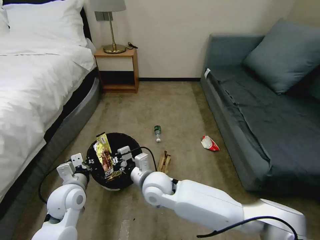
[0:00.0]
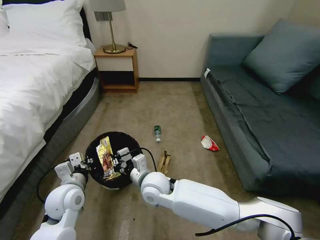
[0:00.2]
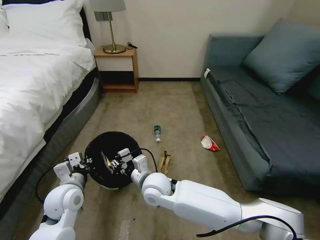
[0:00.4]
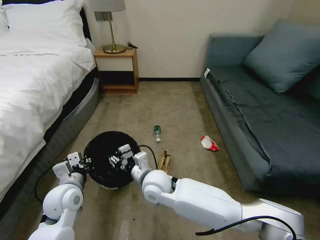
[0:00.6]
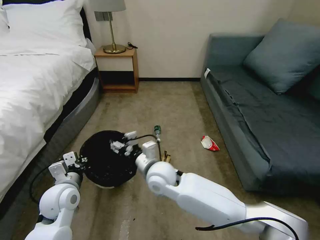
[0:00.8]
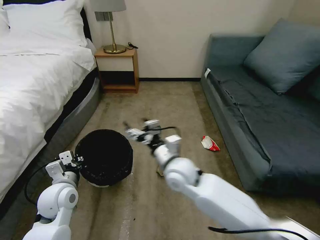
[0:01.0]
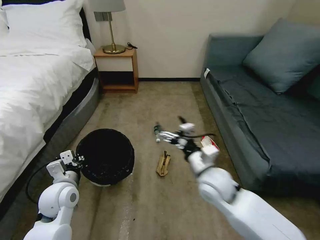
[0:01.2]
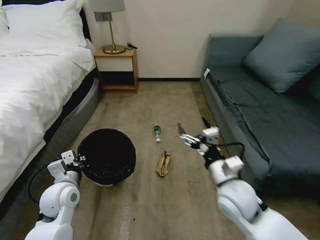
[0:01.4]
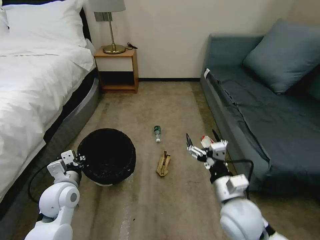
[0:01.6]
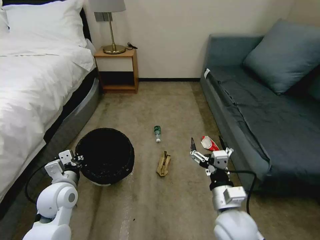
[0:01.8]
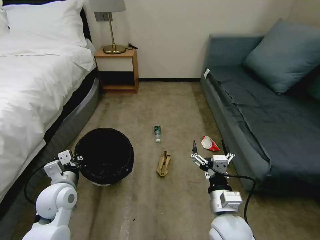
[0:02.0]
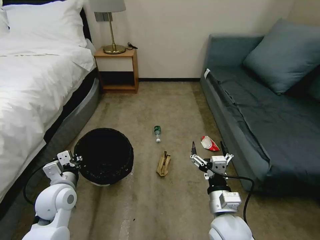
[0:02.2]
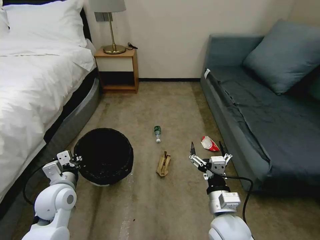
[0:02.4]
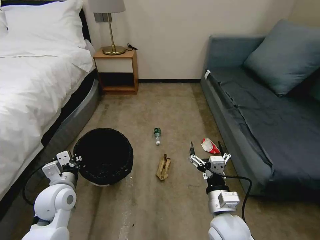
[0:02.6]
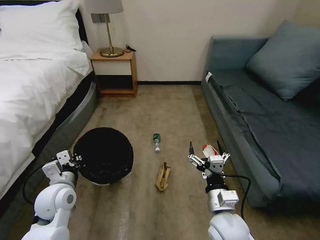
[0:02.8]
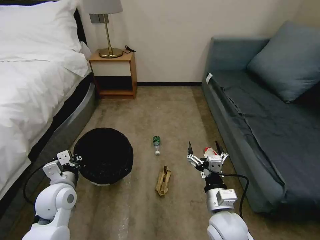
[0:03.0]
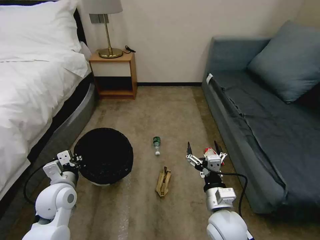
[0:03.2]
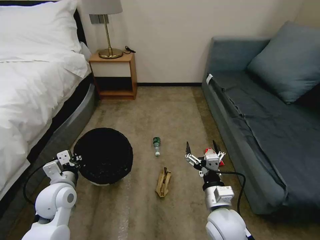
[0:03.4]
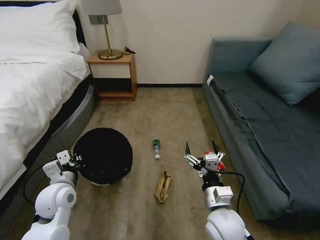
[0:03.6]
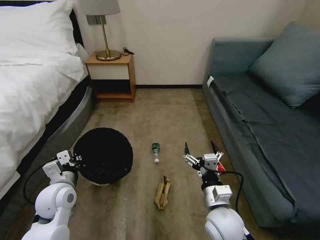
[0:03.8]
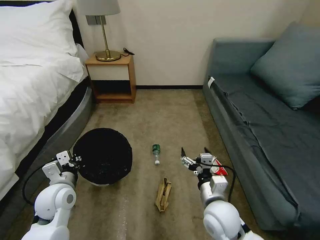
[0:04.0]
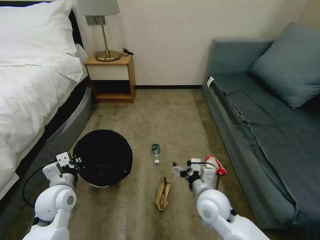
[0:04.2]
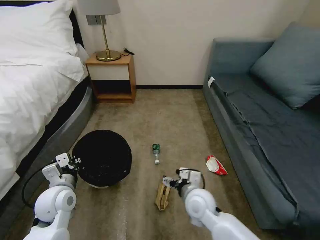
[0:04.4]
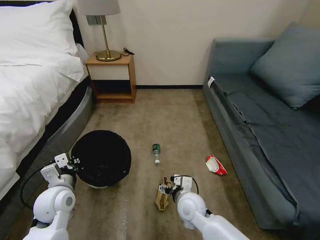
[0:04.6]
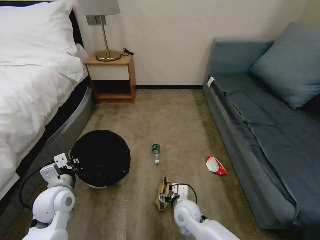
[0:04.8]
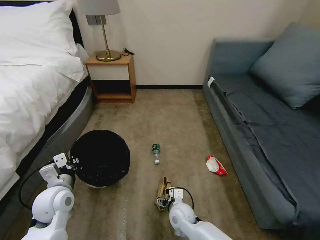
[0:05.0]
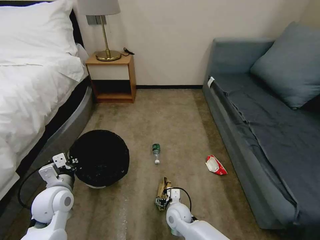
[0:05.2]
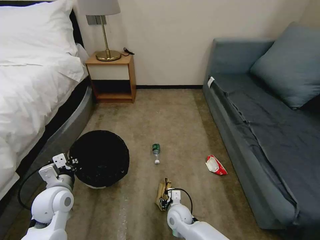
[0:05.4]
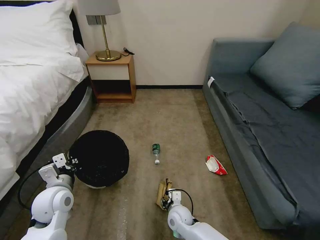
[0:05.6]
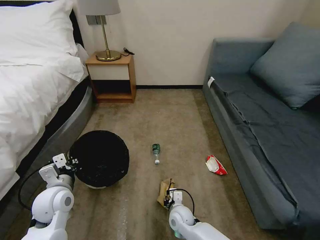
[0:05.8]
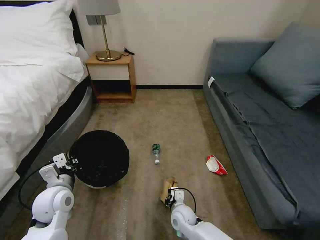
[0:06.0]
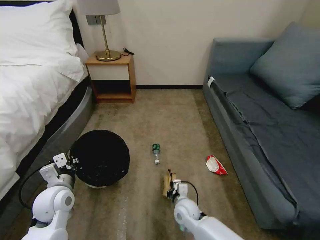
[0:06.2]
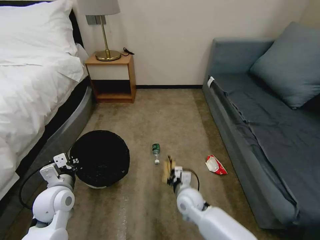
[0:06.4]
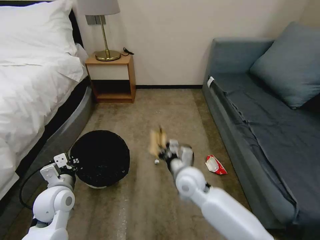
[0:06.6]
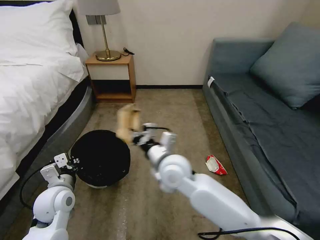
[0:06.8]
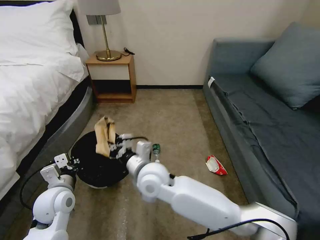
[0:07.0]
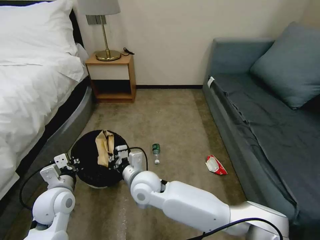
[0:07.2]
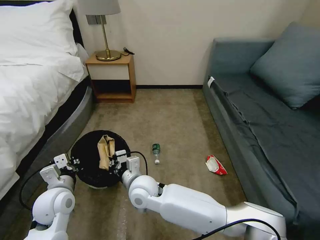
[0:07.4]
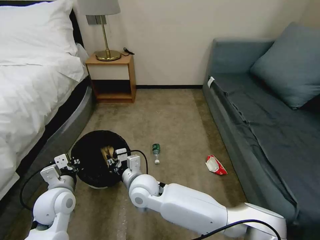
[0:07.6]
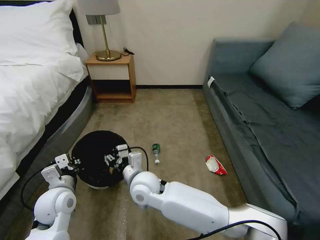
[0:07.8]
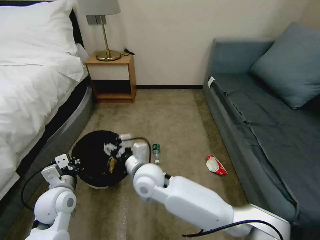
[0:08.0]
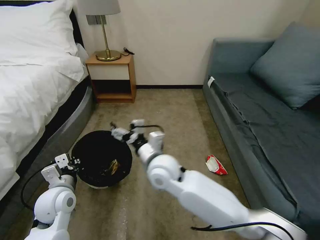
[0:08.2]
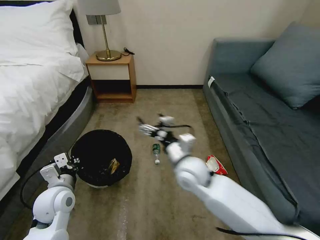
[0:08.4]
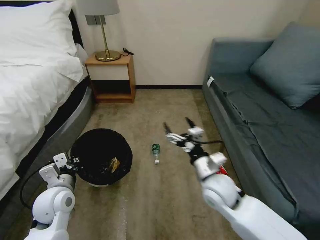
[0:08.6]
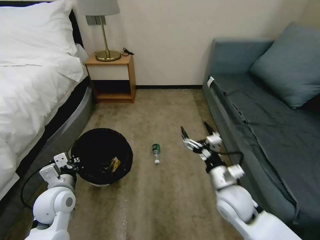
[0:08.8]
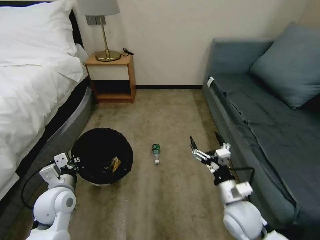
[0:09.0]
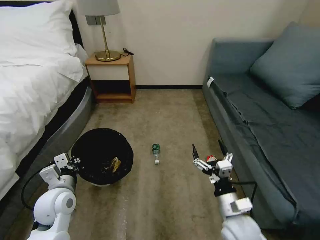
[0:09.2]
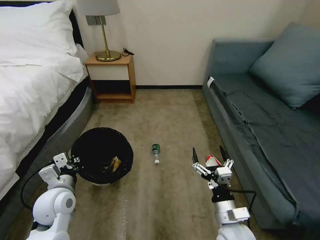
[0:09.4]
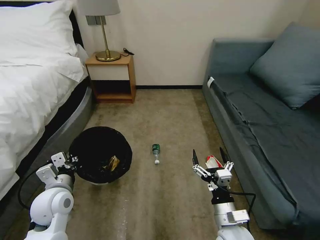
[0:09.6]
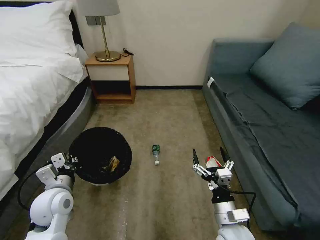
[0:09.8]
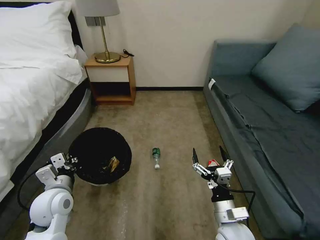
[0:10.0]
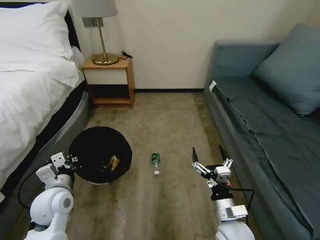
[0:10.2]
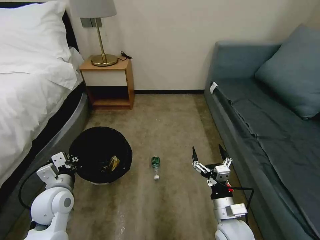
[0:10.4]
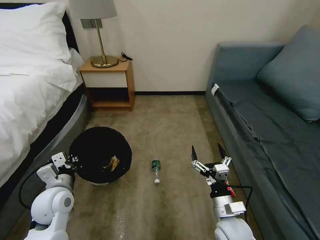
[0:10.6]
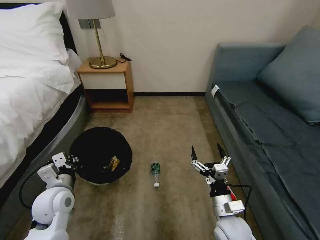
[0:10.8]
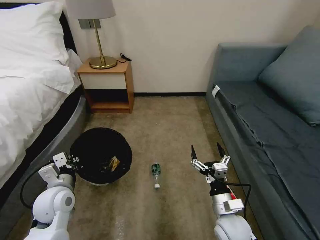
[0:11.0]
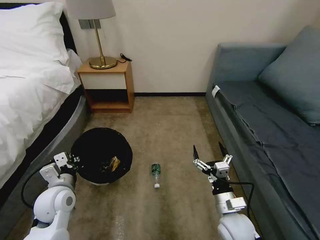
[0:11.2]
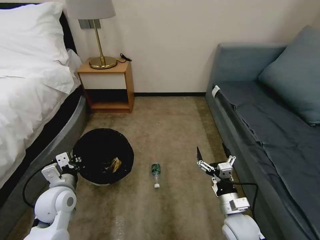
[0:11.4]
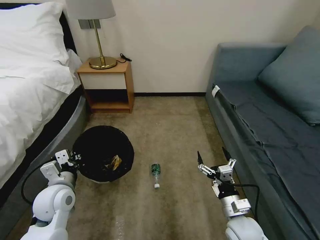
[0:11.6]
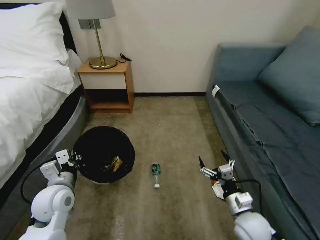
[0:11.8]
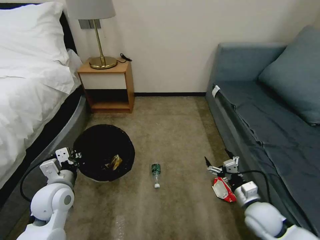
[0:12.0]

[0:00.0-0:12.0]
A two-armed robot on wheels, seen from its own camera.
Task of the whole recording: Pick up the trash bin, then pick up the garbage on the floor and place it into the trash bin.
0:00.0 to 0:01.6: The right gripper is displaced to the right and backward by approximately 25 cm, and opens its fingers.
0:01.6 to 0:03.0: The right gripper ends up approximately 5 cm from where it was.
0:03.0 to 0:04.4: The right gripper shifts roughly 10 cm forward.
0:04.4 to 0:06.0: The right gripper travels downward by some 15 cm, and closes up.
0:06.0 to 0:07.6: The right gripper is displaced upward and to the left by roughly 25 cm.
0:07.6 to 0:09.0: The right gripper goes approximately 30 cm to the right, and opens its fingers.
0:09.0 to 0:10.4: The right gripper changes place by approximately 5 cm.
0:10.4 to 0:12.0: The right gripper shifts about 10 cm to the right.

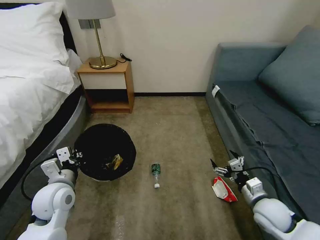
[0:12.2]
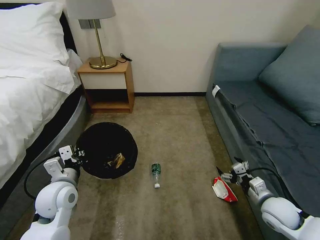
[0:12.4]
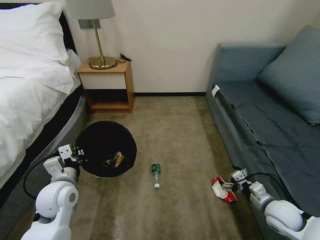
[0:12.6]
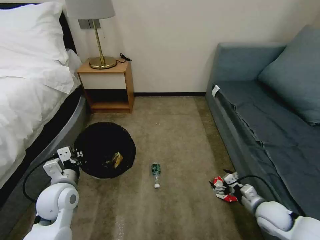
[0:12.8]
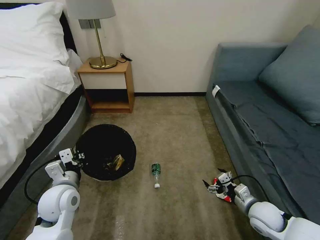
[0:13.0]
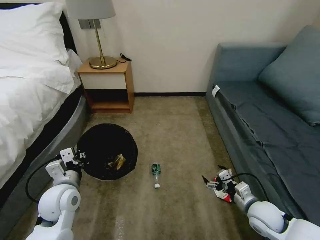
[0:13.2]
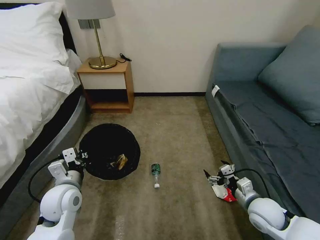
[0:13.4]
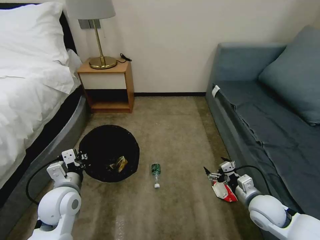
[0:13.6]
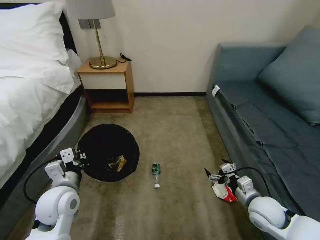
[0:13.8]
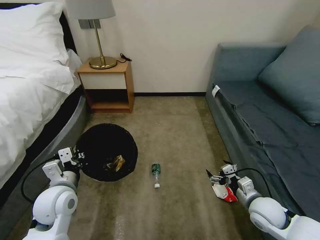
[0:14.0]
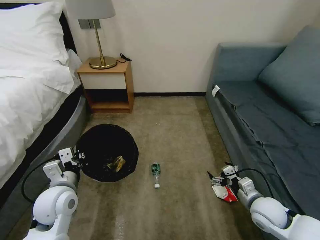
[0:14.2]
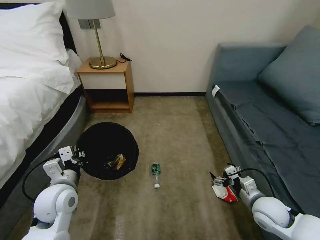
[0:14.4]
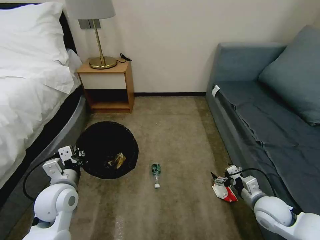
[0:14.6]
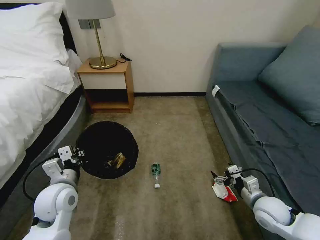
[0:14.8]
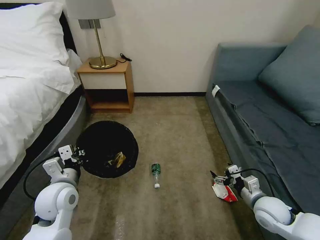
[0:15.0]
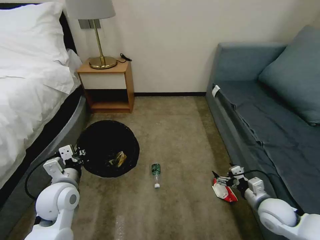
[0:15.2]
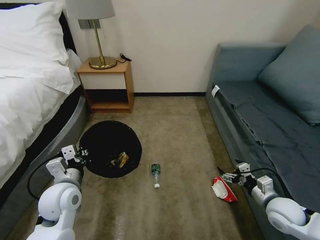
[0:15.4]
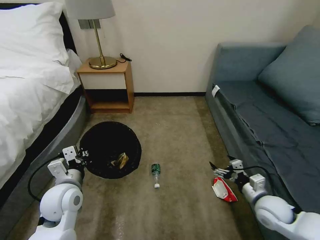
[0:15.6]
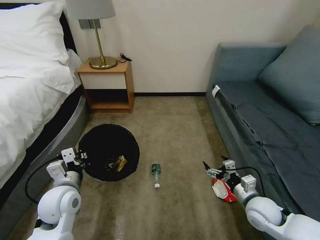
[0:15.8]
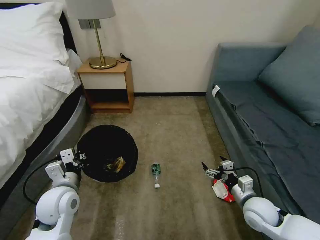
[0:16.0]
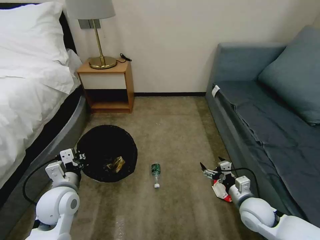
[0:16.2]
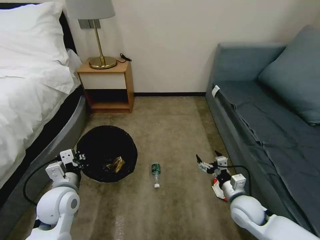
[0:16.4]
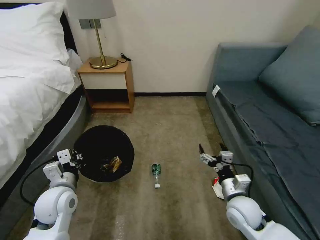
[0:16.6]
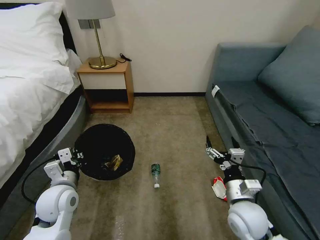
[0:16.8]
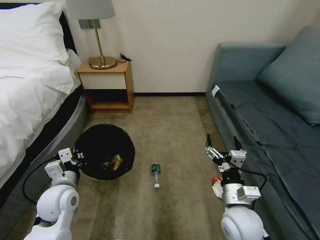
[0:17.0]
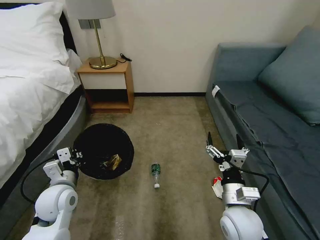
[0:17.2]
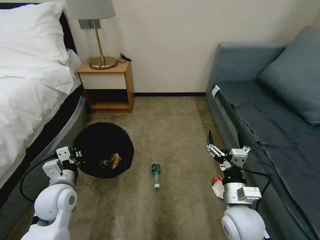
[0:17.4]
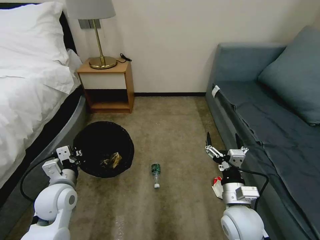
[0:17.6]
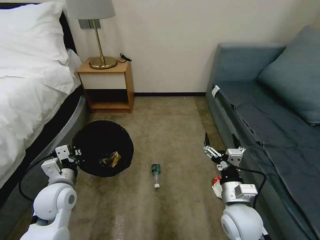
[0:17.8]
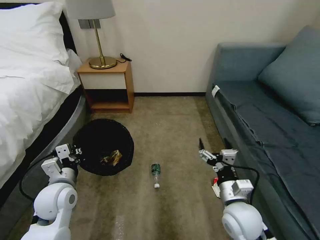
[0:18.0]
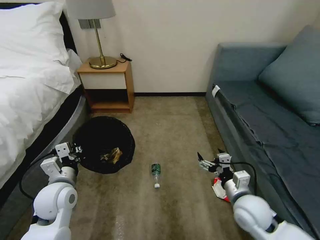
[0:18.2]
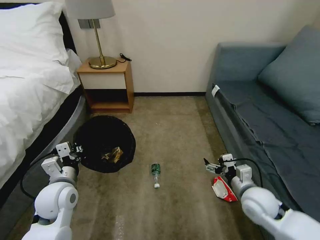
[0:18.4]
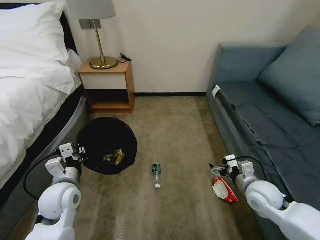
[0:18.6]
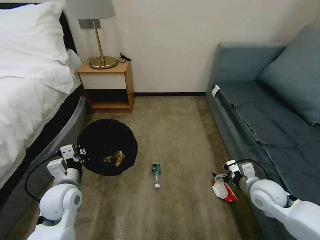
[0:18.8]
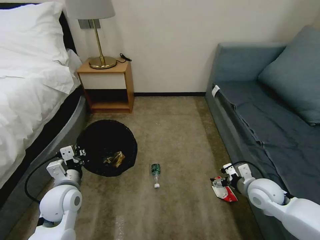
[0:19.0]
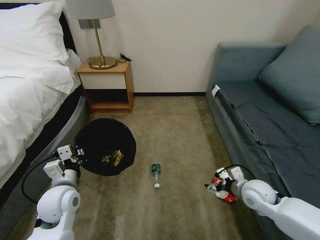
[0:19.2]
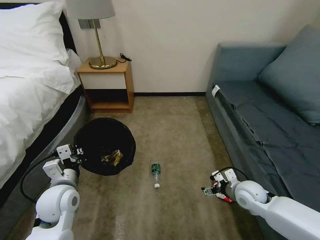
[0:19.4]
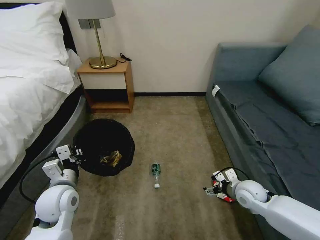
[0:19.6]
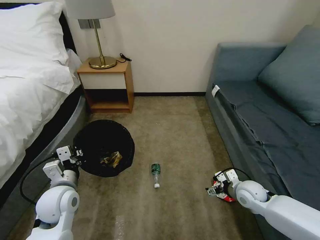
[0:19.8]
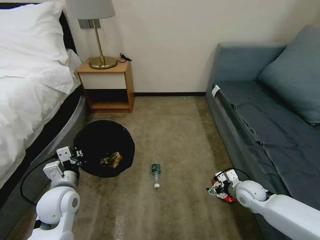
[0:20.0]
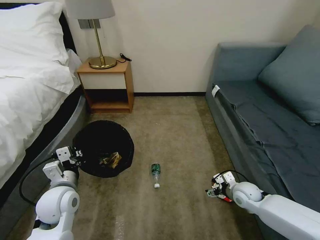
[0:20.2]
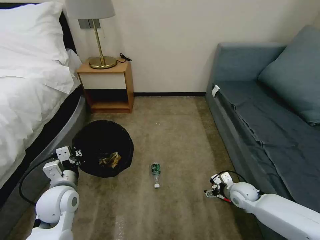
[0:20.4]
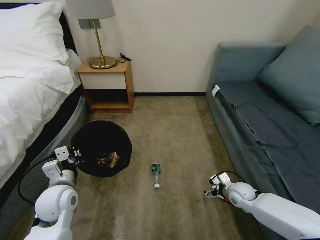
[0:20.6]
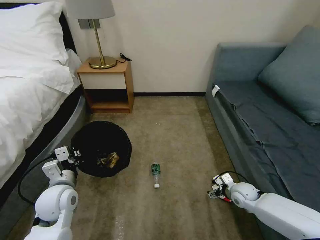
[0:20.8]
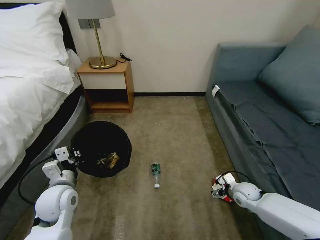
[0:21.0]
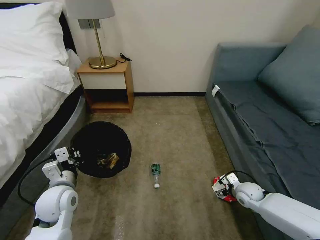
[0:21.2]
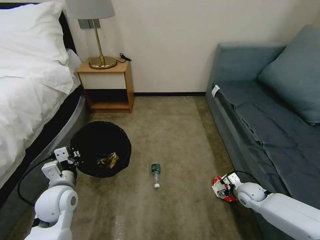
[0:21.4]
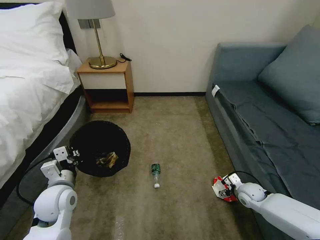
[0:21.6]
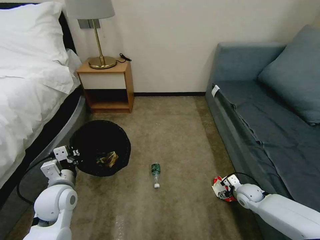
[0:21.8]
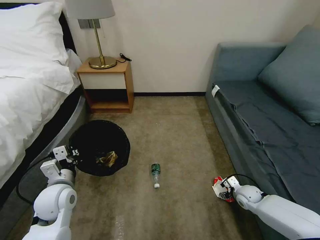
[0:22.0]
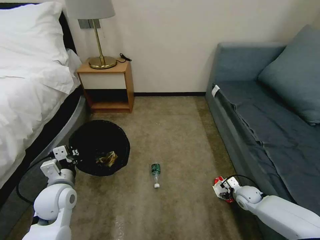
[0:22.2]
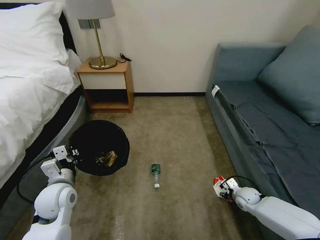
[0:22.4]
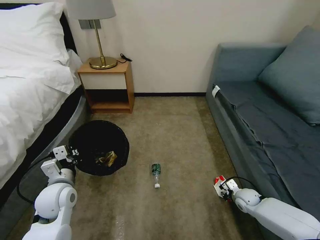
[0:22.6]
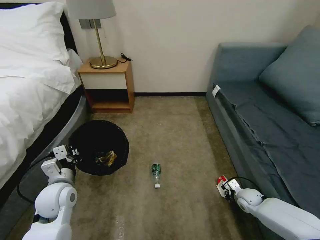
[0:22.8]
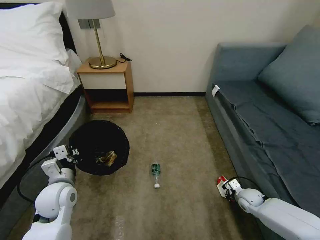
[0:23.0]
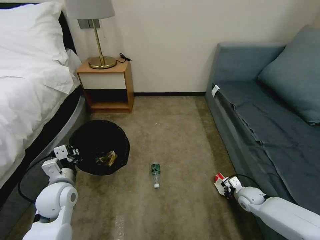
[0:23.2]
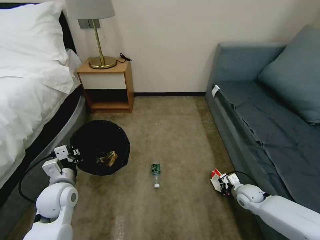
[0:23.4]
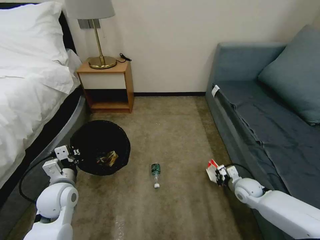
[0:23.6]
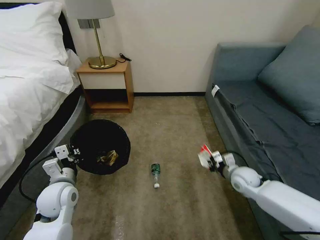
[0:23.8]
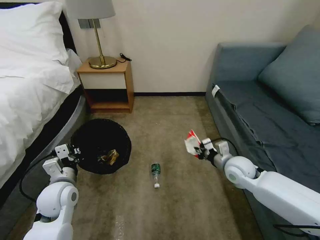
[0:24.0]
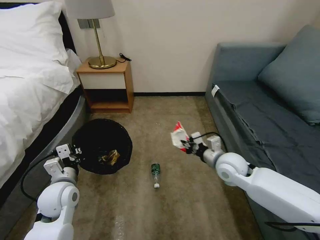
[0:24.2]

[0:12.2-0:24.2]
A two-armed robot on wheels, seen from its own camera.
Task of the whole recording: Pick up the trash bin, then pick up the garbage on the floor and place it into the trash bin.
0:13.8 to 0:15.2: The grippers make only small movements.
0:15.2 to 0:16.6: The right gripper moves to the left, approximately 10 cm.
0:18.2 to 0:19.8: The right gripper goes some 15 cm forward, to the right and downward.
0:19.8 to 0:21.2: The right gripper moves downward, roughly 5 cm.
0:21.2 to 0:22.6: The right gripper moves downward, approximately 5 cm, and closes its fingers.
0:22.6 to 0:24.2: The right gripper travels upward and to the left by about 30 cm, and closes.
